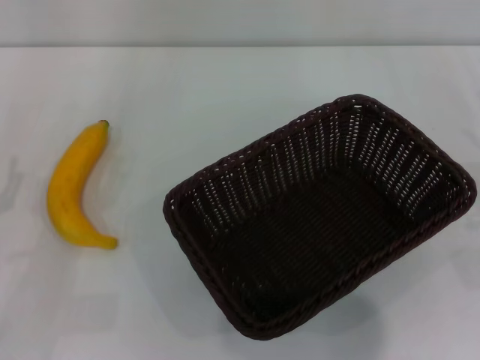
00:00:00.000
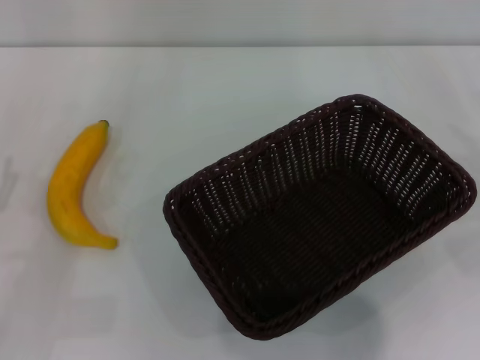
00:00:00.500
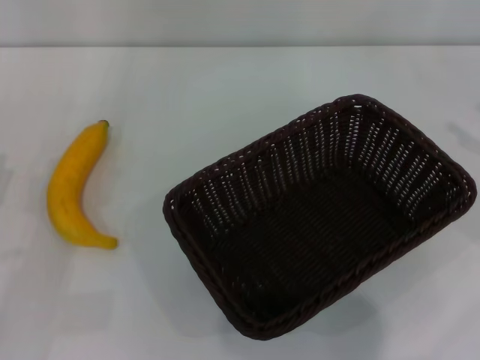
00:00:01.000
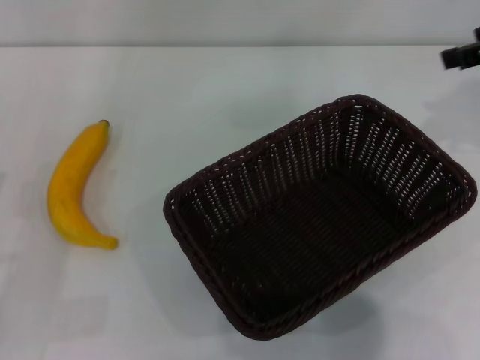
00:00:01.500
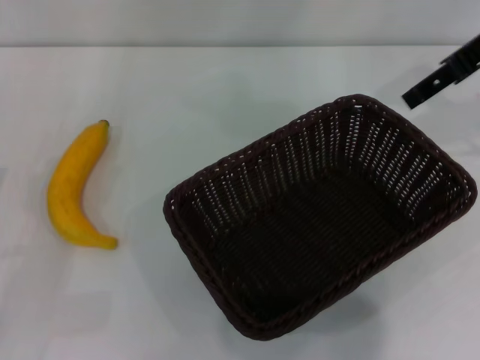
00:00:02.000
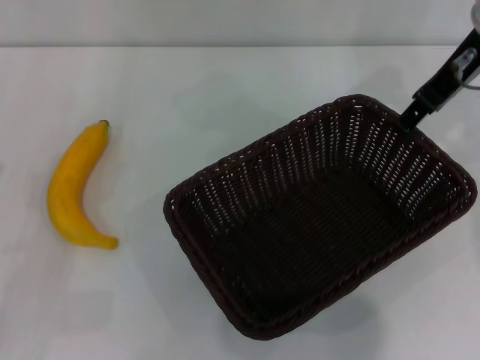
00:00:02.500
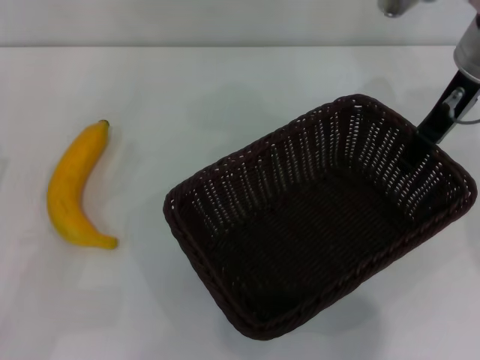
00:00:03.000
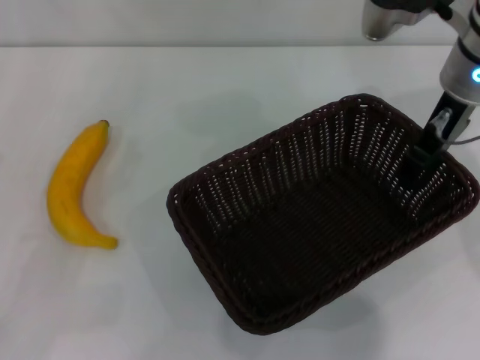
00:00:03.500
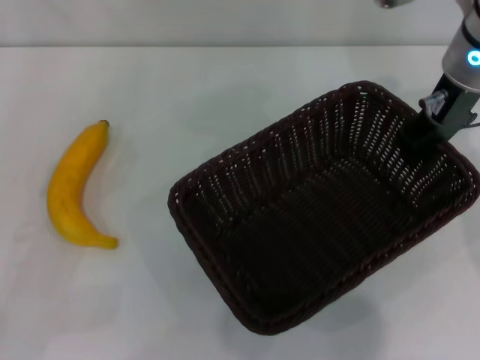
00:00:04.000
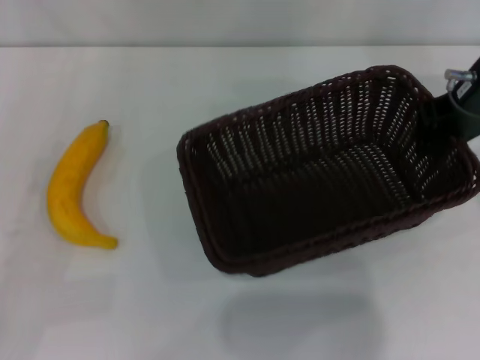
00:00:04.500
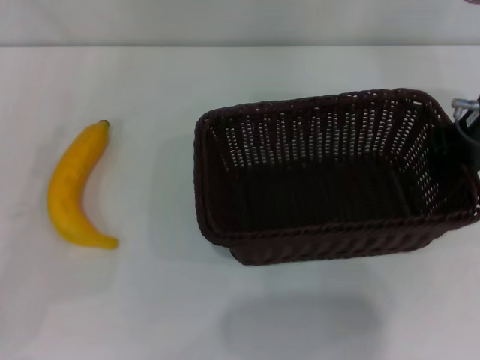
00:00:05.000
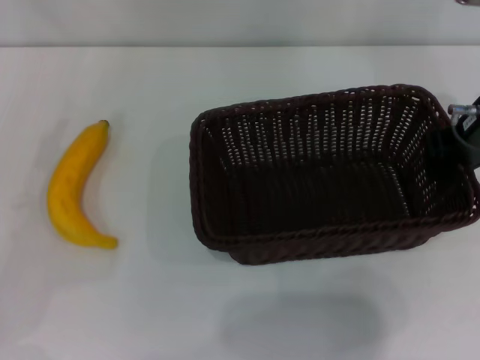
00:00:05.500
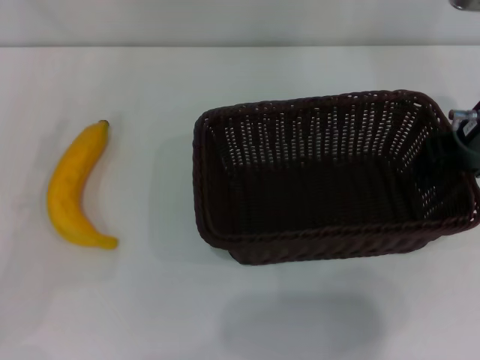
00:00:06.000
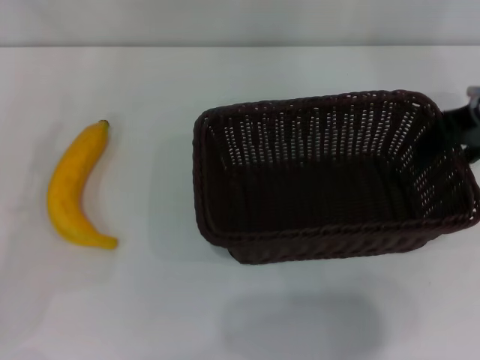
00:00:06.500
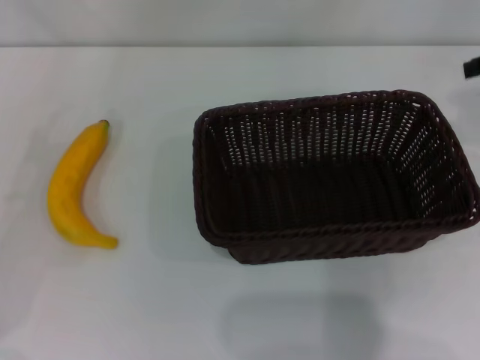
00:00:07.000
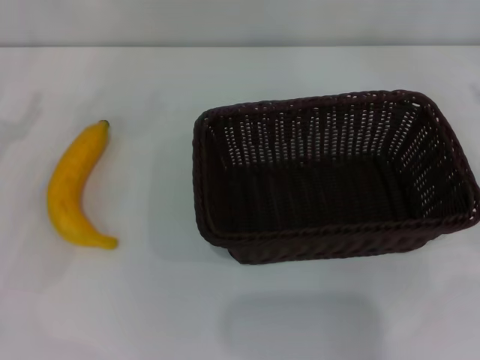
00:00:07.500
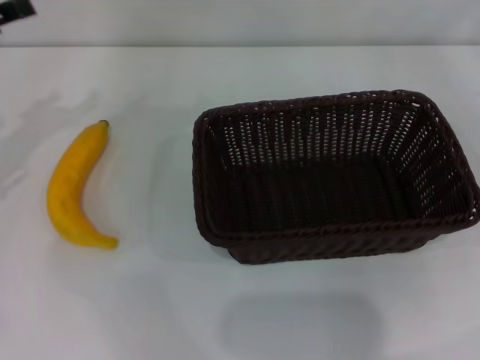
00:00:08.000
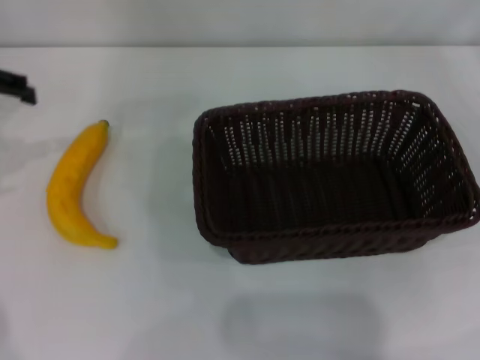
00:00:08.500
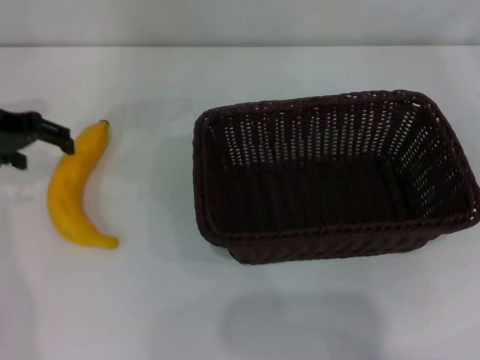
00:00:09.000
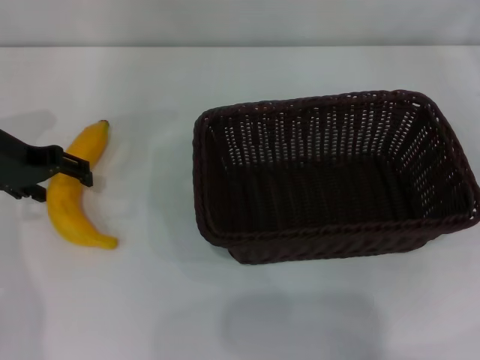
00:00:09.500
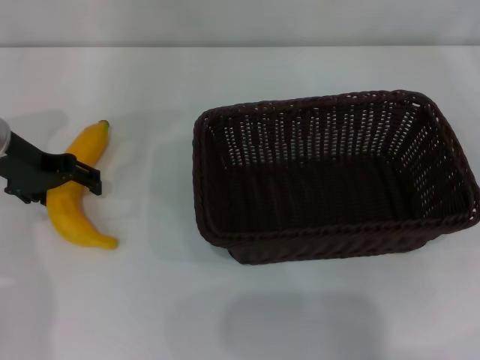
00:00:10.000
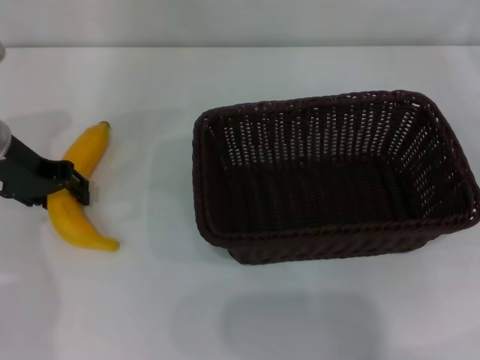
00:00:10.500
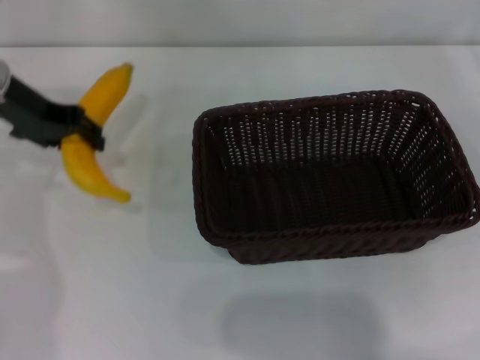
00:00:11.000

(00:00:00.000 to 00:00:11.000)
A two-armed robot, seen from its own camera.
Step, 00:00:00.000 - 00:00:04.000: Pick up the dark basket with the right gripper.
Step, 00:00:04.500 - 00:00:06.500: Place the dark basket in the center of view with the right gripper.
Step, 00:00:07.500 - 00:00:10.500: Pick up the banana with the left gripper.
00:00:00.000 - 00:00:02.000: The right gripper travels upward, to the left and forward by approximately 30 cm.
00:00:02.000 - 00:00:03.500: The right gripper travels downward and to the left by approximately 10 cm.
00:00:03.500 - 00:00:05.500: The left gripper changes place by some 5 cm, while the right gripper moves some 5 cm, and closes.
00:00:05.500 - 00:00:07.500: The right gripper travels to the right by roughly 20 cm, and opens.
00:00:07.500 - 00:00:09.000: The left gripper heads forward, upward and to the right, covering some 10 cm.
00:00:09.000 - 00:00:11.000: The left gripper closes its fingers.

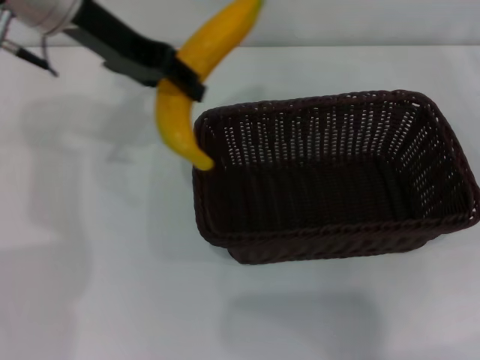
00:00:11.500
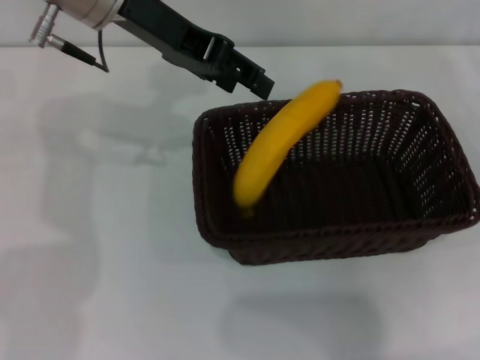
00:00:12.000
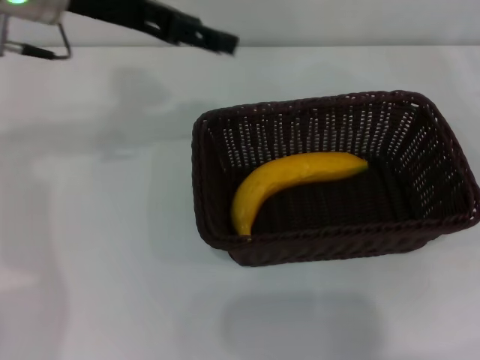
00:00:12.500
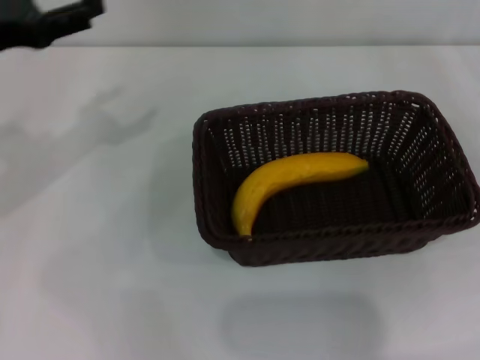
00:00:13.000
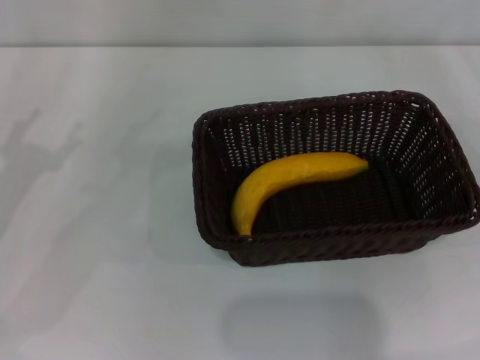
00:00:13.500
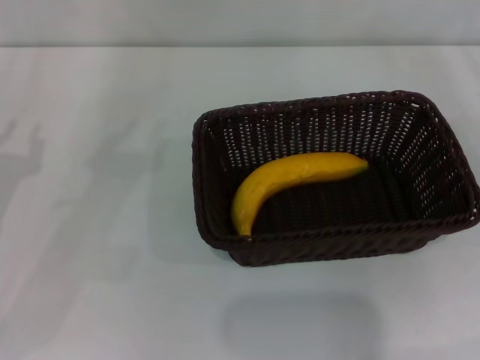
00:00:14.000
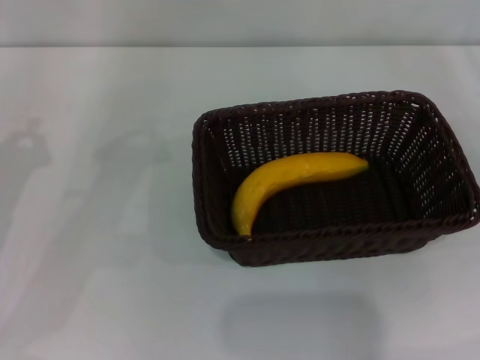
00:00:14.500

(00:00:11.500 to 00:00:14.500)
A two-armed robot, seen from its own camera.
00:00:11.500 - 00:00:13.000: The left gripper heads to the left, backward and downward, covering some 15 cm, and opens its fingers.
00:00:13.000 - 00:00:14.500: The left gripper travels downward and backward by some 15 cm, and closes up.
